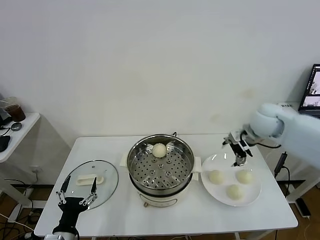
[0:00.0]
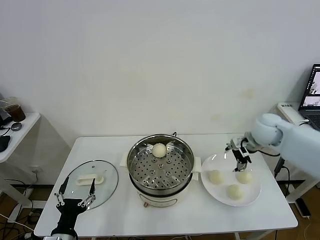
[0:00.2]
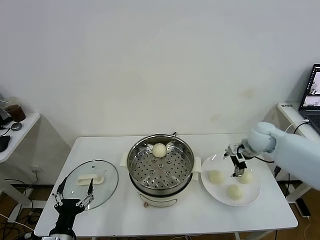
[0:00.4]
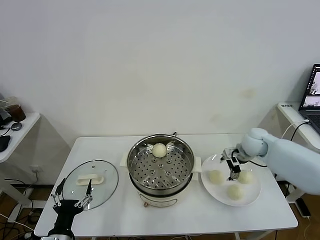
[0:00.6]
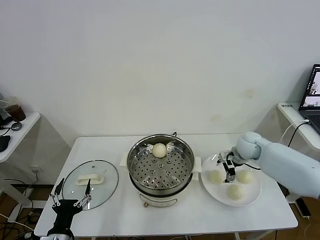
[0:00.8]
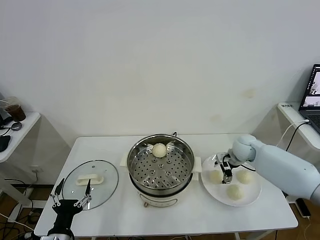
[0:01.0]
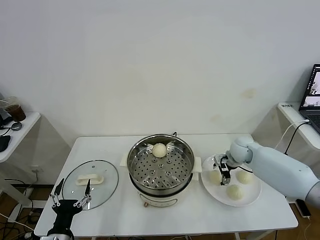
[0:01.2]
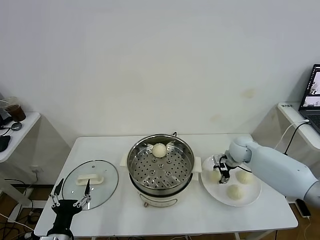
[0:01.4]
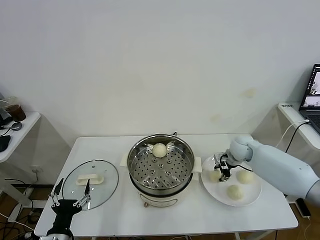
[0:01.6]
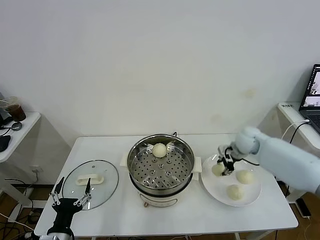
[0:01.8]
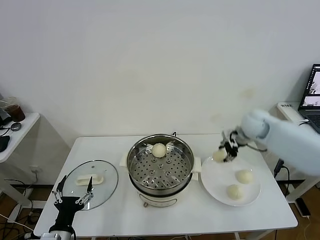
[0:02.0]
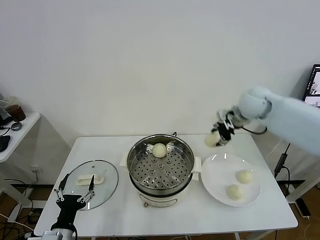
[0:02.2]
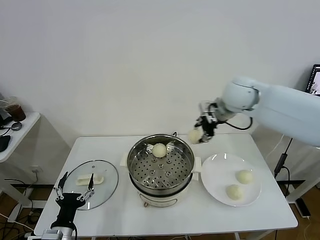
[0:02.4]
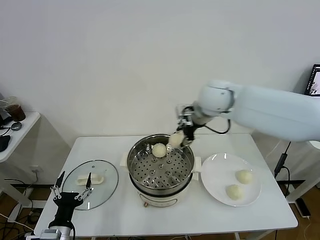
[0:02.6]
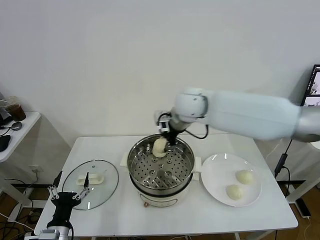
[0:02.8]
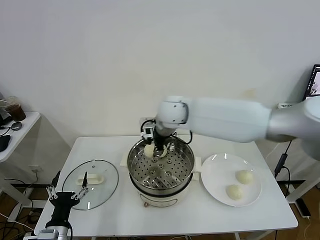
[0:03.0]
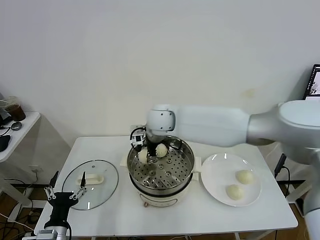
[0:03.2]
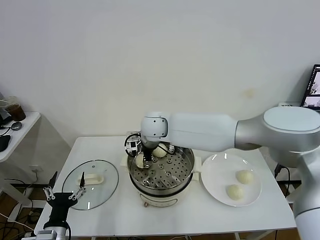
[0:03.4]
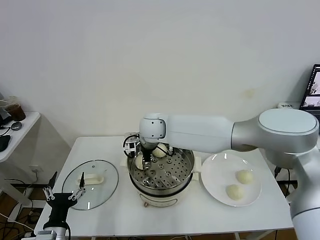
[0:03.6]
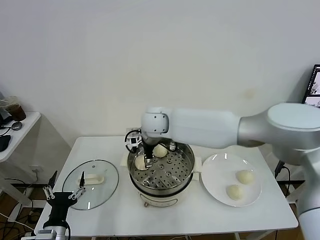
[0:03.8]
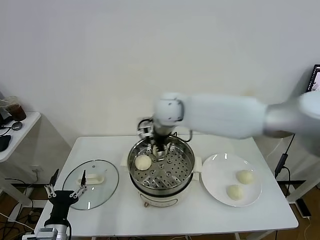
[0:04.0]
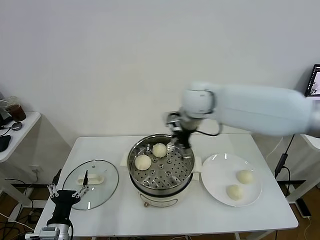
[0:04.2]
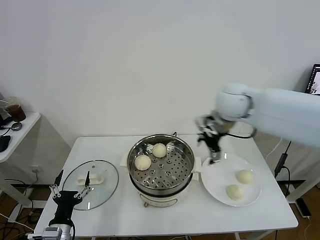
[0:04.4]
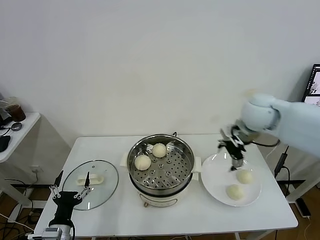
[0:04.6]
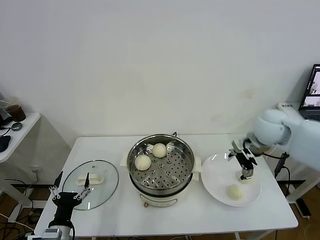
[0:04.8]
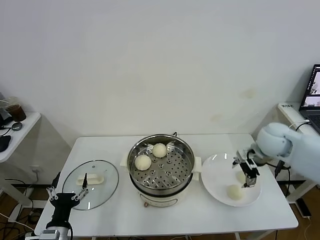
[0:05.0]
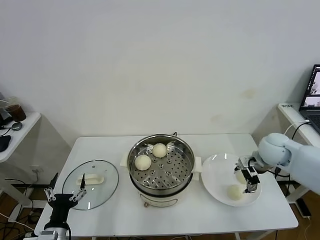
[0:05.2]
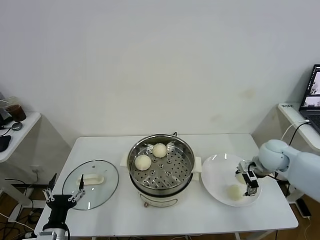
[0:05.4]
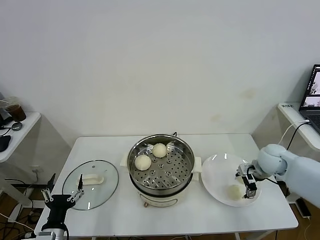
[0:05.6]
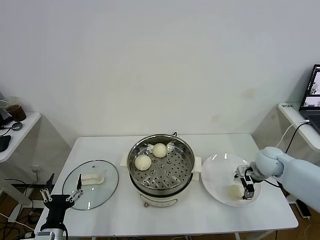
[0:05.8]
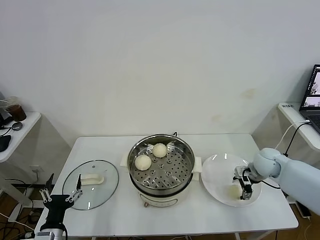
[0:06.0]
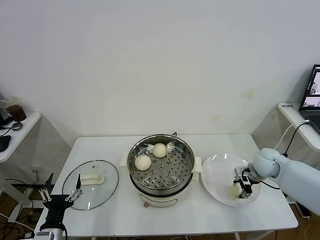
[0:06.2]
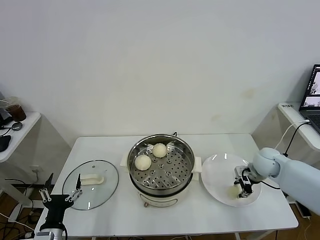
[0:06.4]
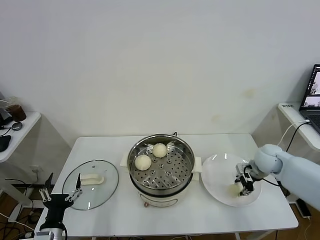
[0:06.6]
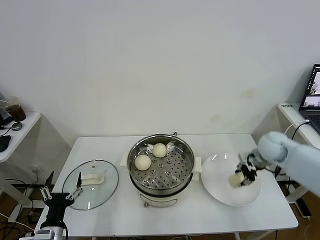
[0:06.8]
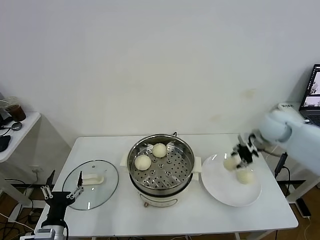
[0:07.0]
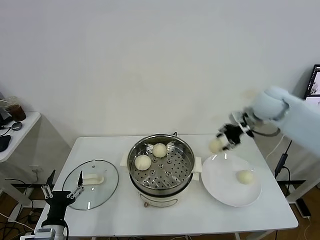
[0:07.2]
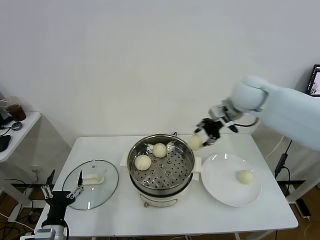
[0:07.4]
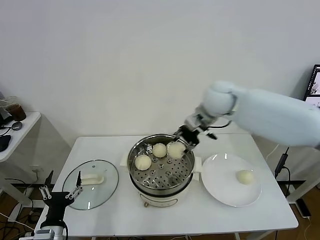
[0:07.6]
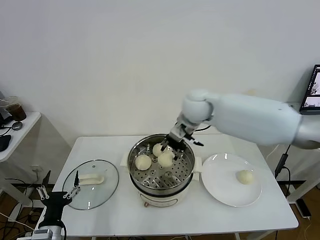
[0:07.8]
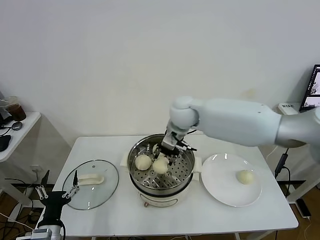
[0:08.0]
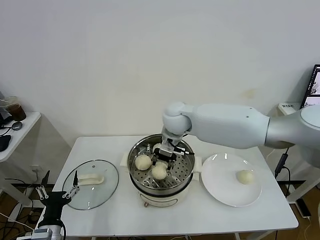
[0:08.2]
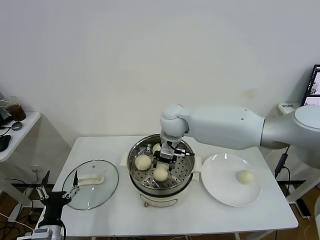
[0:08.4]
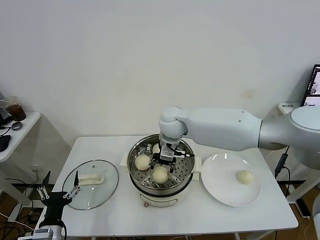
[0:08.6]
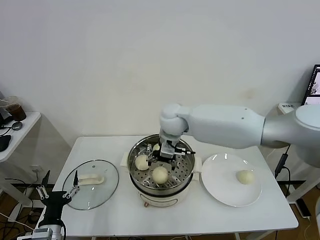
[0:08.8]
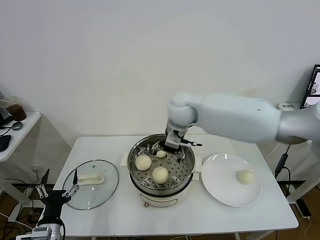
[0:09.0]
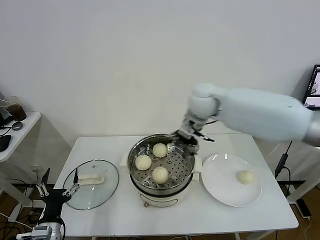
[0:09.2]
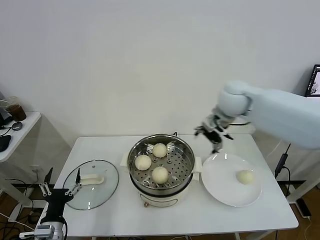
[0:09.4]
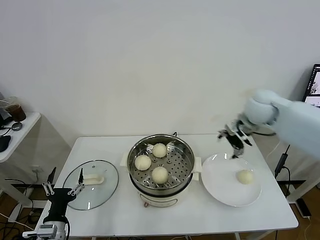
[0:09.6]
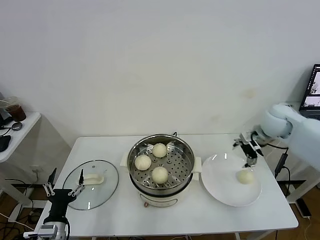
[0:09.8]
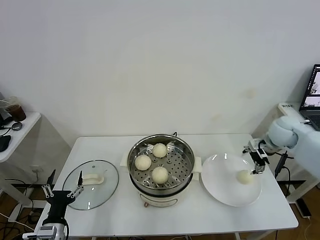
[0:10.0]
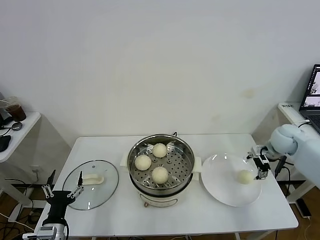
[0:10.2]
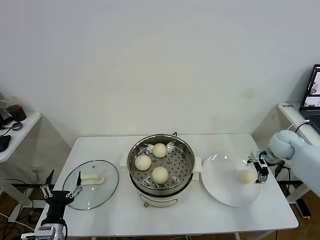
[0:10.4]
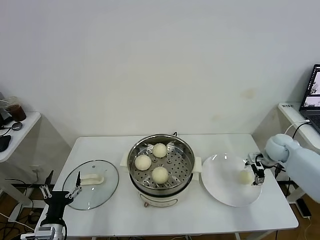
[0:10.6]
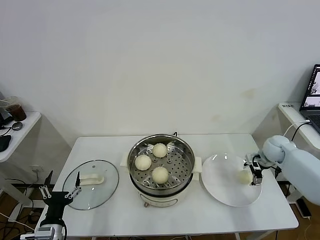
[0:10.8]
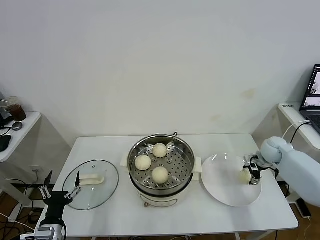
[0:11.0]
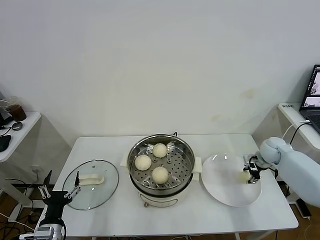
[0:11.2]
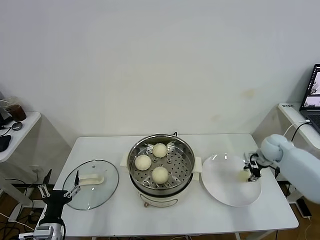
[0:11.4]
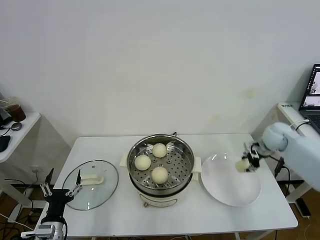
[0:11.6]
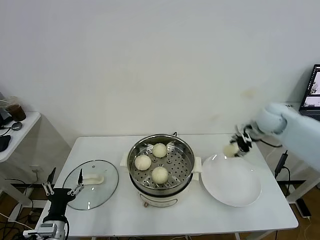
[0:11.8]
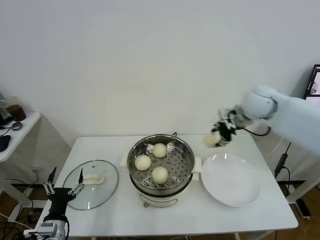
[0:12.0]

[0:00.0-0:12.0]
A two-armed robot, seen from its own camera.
Task of the whole recording: take steamed baozi put them in steamer.
Step, 0:00.0 to 0:01.4: Grasp the baozi in the plate with right gripper.
Step, 0:01.6 to 0:03.6: Place the baozi on the steamer with right gripper.
Step, 0:04.0 to 0:06.4: Grasp the baozi in the plate with right gripper.
Step, 0:06.6 to 0:08.8: Place the baozi on the steamer with right gripper.
Step, 0:09.0 to 0:11.2: Grasp the baozi in the plate with right gripper.
0:00.0 to 0:01.6: The right gripper shifts approximately 15 cm downward, and closes up.
0:01.6 to 0:03.0: The right gripper goes some 35 cm to the left and upward.
0:03.0 to 0:04.4: The right gripper goes approximately 20 cm to the right, and opens its fingers.
0:04.4 to 0:06.0: The right gripper moves downward and to the right, about 25 cm.
0:06.0 to 0:07.6: The right gripper is displaced to the left and upward by roughly 30 cm, and closes.
0:07.6 to 0:09.0: The right gripper moves to the left, some 5 cm, and opens up.
0:09.0 to 0:10.4: The right gripper travels to the right and downward by approximately 40 cm.
0:10.4 to 0:12.0: The right gripper moves upward and to the left, roughly 25 cm, and closes up.

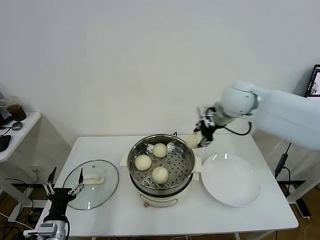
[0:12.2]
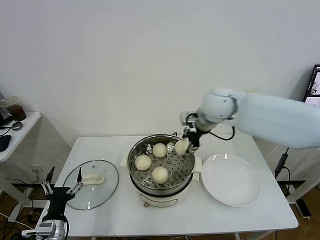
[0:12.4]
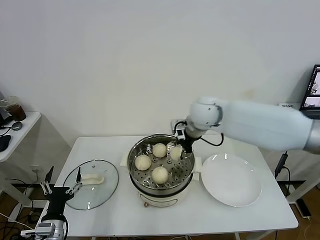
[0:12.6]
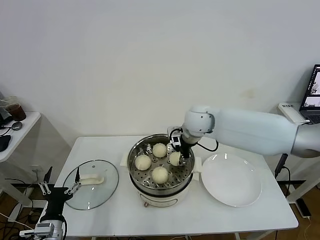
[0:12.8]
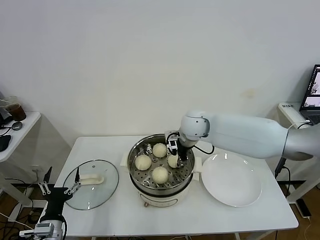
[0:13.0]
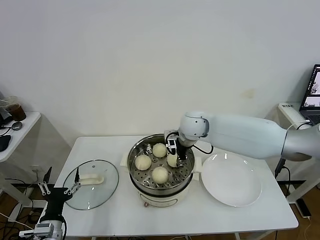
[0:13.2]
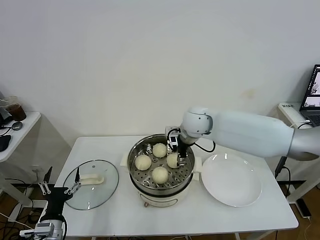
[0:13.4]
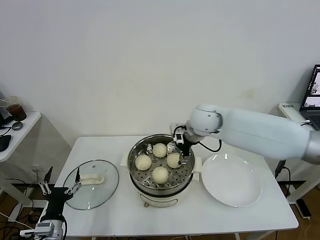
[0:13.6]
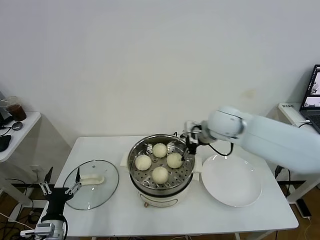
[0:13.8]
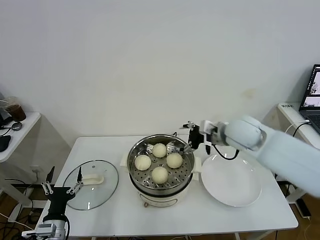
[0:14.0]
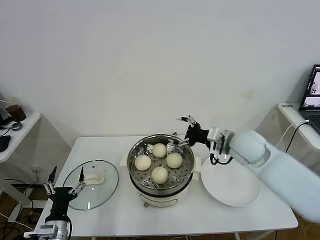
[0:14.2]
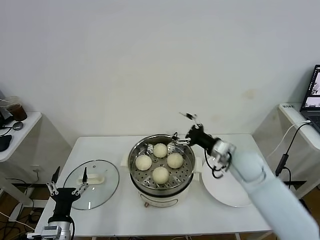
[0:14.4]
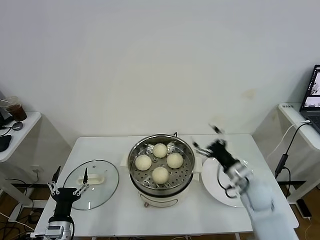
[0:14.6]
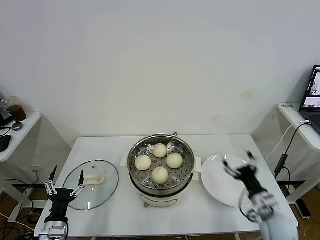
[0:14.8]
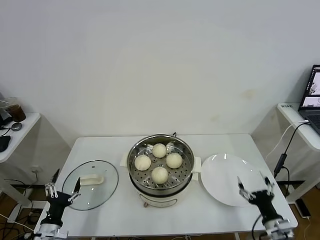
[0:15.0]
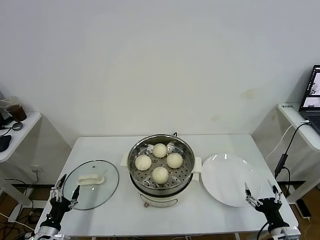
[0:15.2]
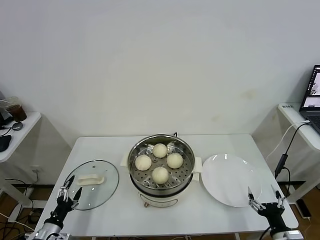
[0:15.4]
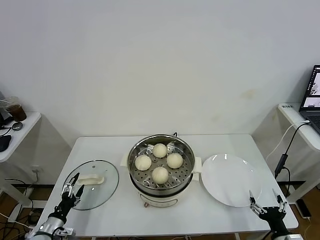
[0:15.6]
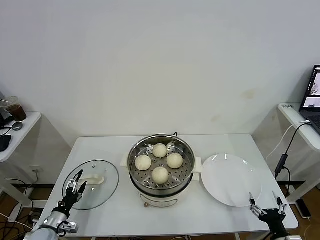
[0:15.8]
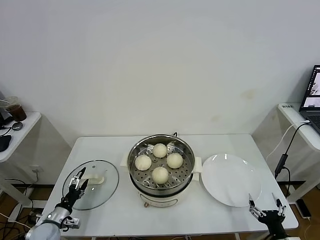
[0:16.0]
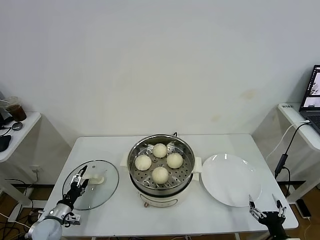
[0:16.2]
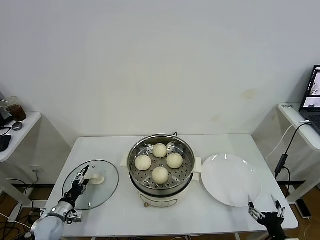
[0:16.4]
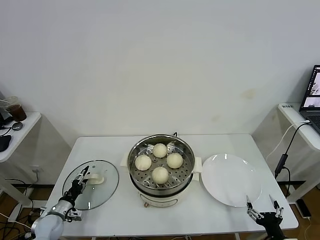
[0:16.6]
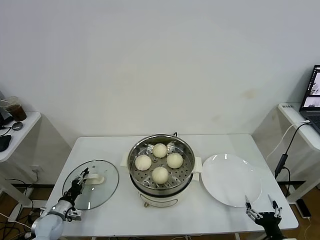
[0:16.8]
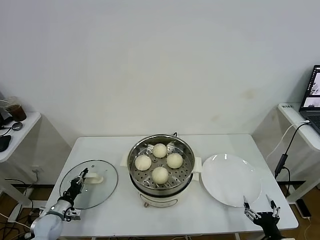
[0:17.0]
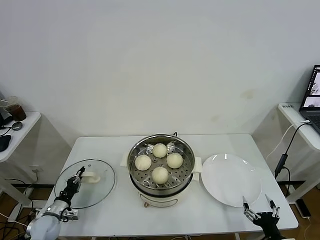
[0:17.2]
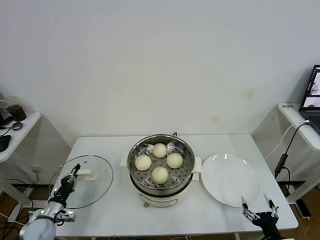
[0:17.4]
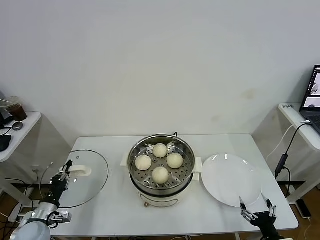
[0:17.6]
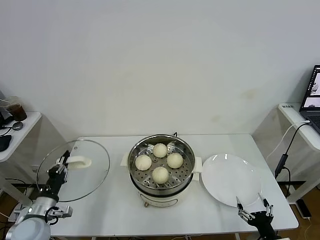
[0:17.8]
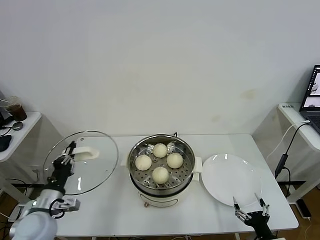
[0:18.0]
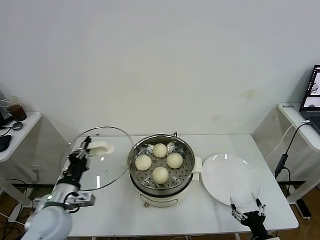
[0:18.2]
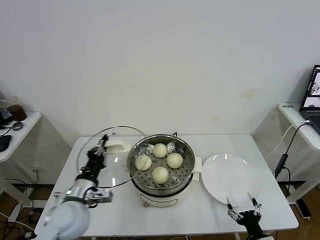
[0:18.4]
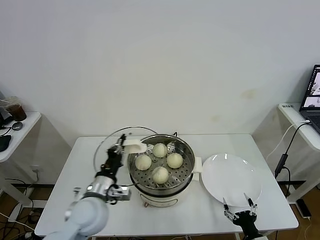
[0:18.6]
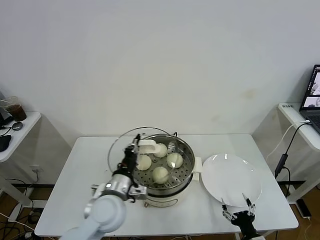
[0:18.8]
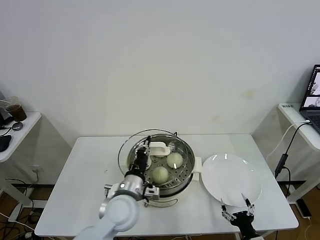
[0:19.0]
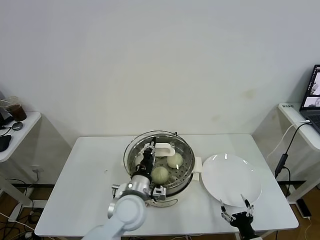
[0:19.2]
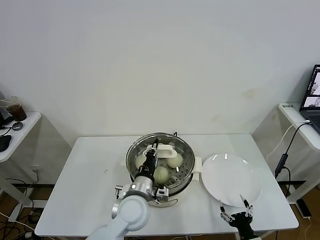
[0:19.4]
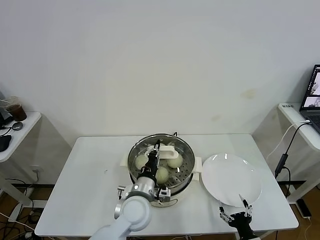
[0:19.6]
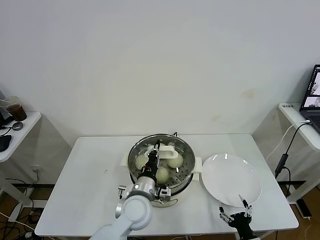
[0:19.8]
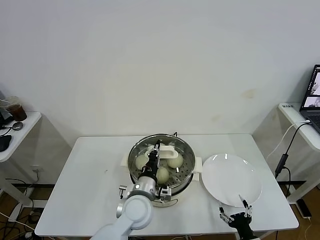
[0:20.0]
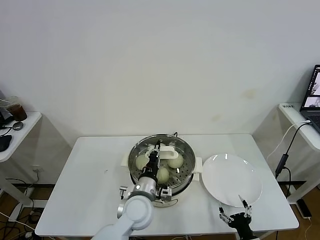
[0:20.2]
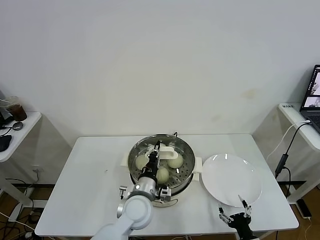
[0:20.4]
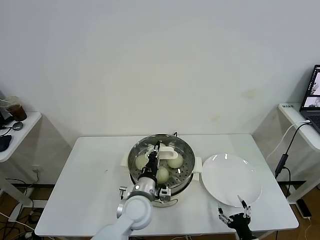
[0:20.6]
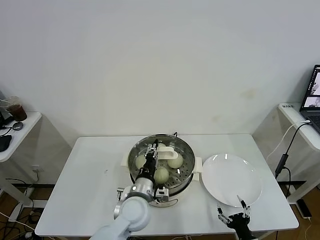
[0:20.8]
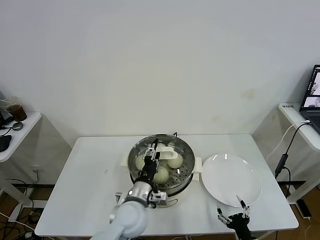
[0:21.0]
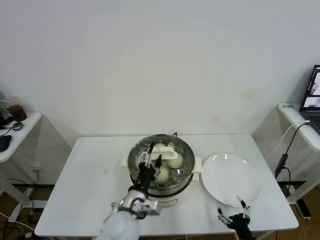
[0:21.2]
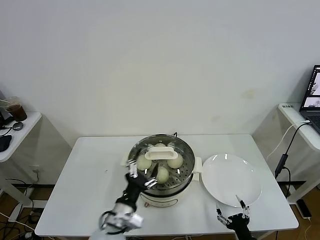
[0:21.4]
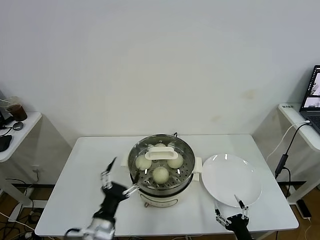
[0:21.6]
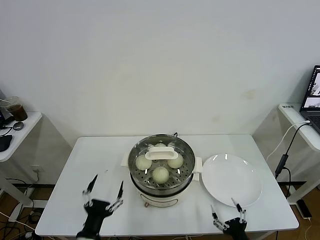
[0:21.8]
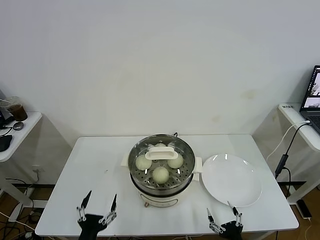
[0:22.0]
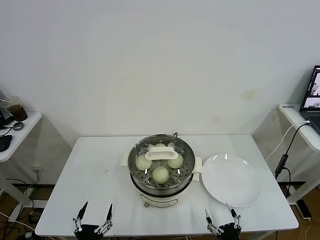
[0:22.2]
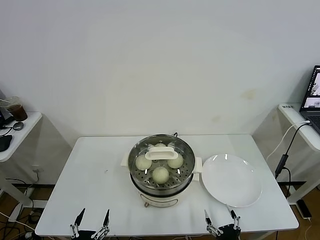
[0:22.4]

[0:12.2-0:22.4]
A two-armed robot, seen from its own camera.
Task of the whole recording: take steamed baozi put them in steamer.
Step, 0:12.2 to 0:13.4: Place the baozi on the steamer with right gripper.
Step, 0:13.8 to 0:17.0: Grasp the pot lid with left gripper.
Step, 0:17.2 to 0:21.2: Place the pot lid on the steamer with left gripper.
0:12.2 to 0:13.6: The right gripper heads to the left and downward, covering roughly 10 cm, and opens its fingers.
0:13.6 to 0:15.2: The right gripper heads backward, downward and to the right, covering some 50 cm; the left gripper moves to the left and downward, some 10 cm.
0:15.2 to 0:16.6: The left gripper heads forward and downward, covering about 15 cm, and closes up.
0:16.6 to 0:18.0: The left gripper heads upward and to the right, covering approximately 20 cm, and closes its fingers.
0:18.0 to 0:19.4: The right gripper shifts by about 5 cm; the left gripper heads to the right, covering approximately 25 cm.
0:19.4 to 0:21.0: The left gripper opens.
0:21.0 to 0:22.4: The right gripper ends up roughly 5 cm from where it was. The left gripper is displaced backward, to the left and downward by approximately 30 cm, and opens its fingers.
